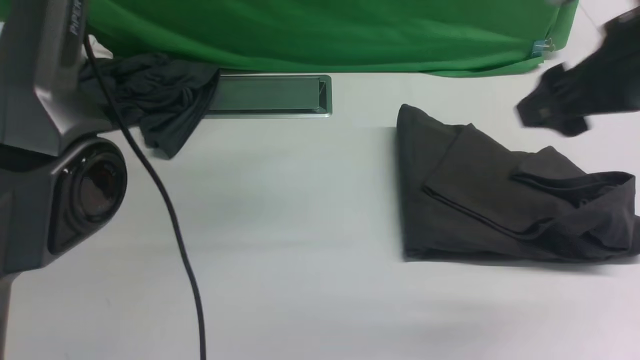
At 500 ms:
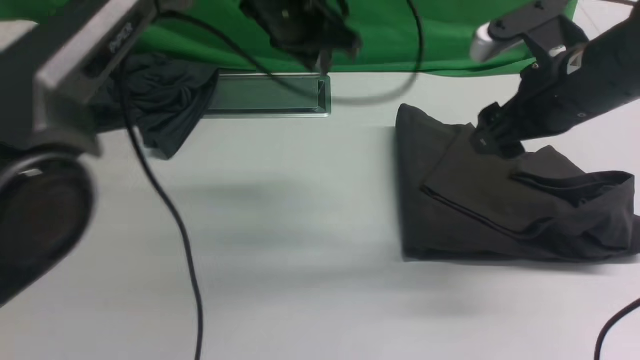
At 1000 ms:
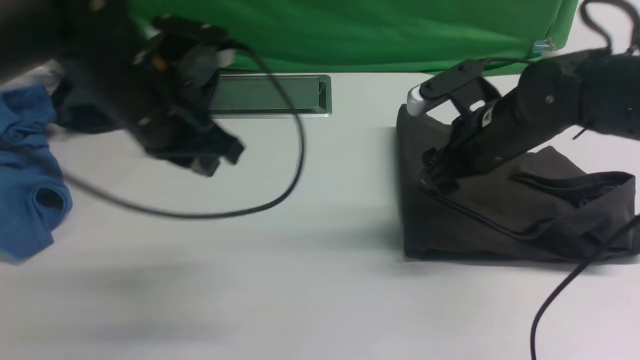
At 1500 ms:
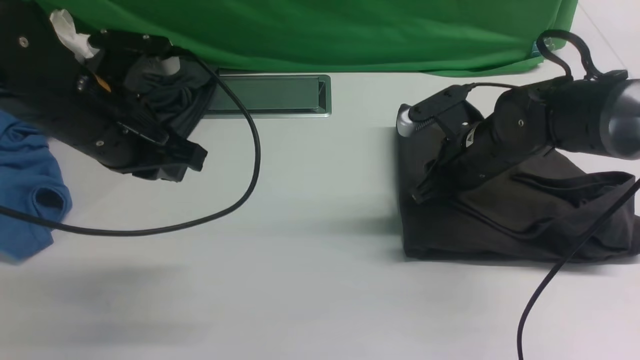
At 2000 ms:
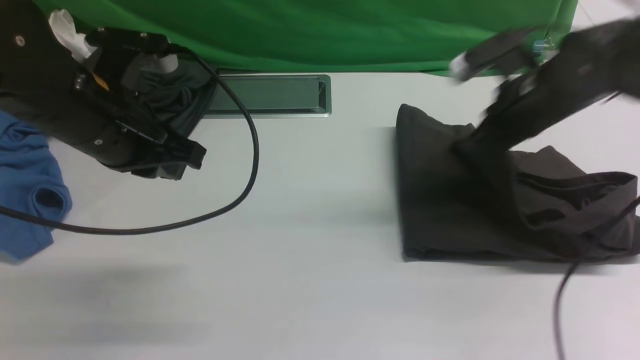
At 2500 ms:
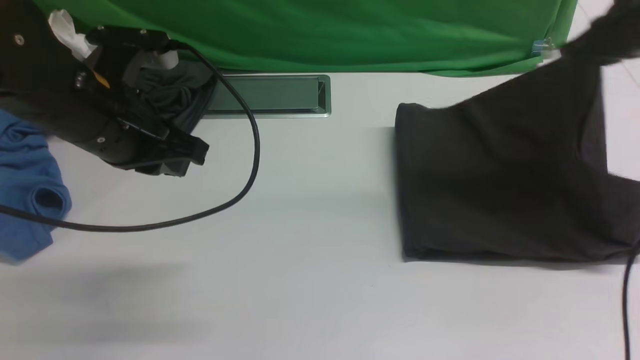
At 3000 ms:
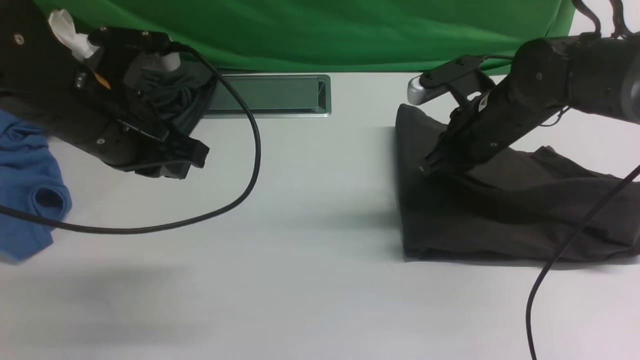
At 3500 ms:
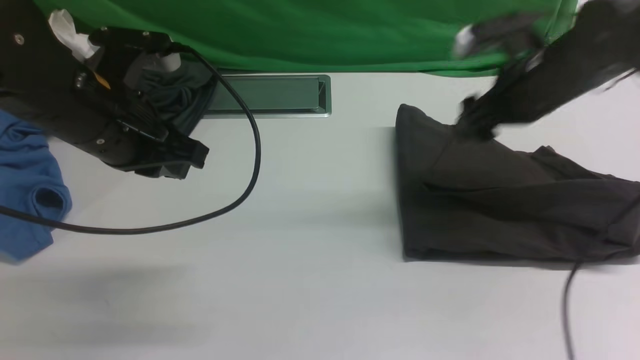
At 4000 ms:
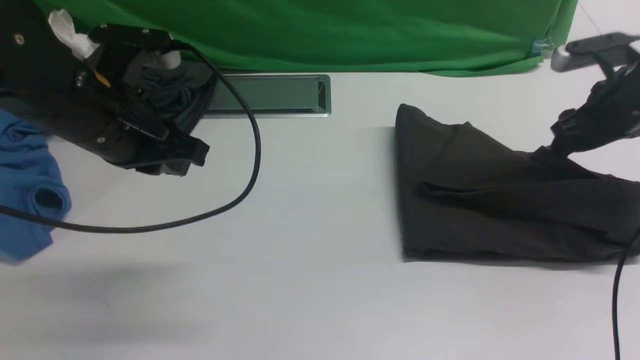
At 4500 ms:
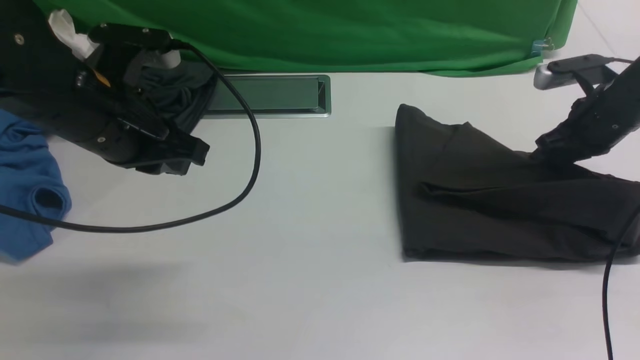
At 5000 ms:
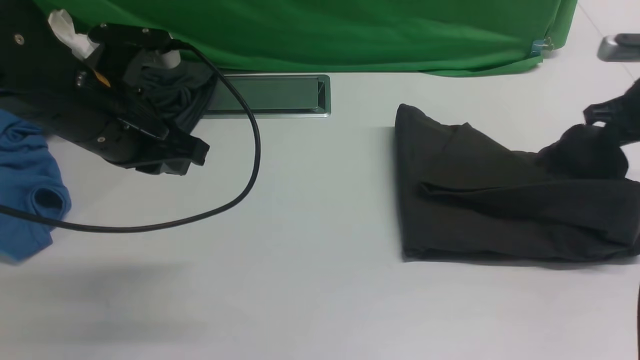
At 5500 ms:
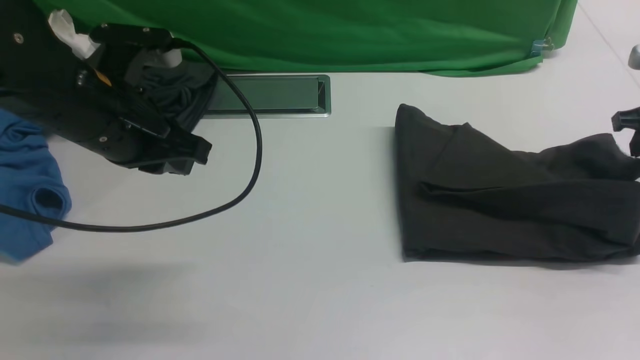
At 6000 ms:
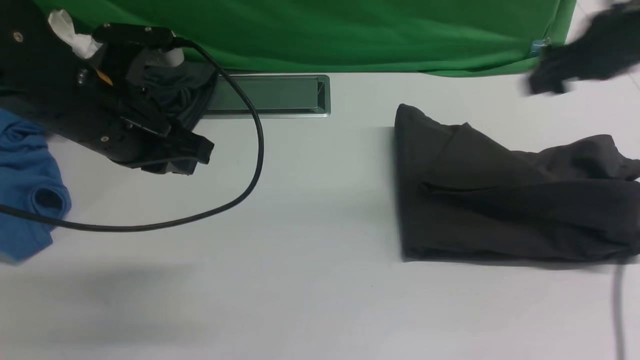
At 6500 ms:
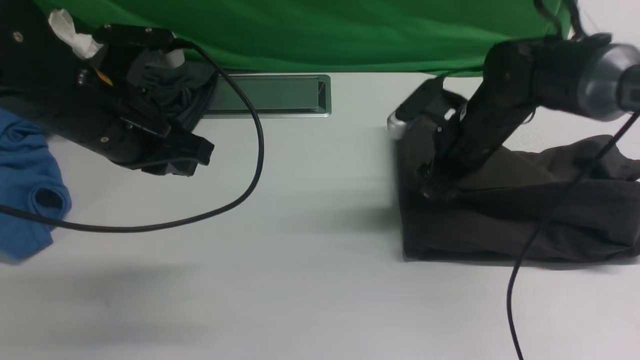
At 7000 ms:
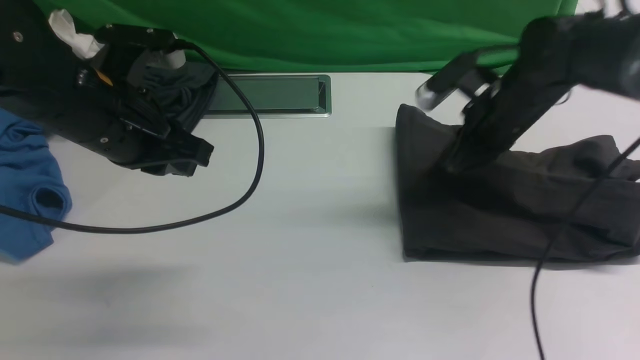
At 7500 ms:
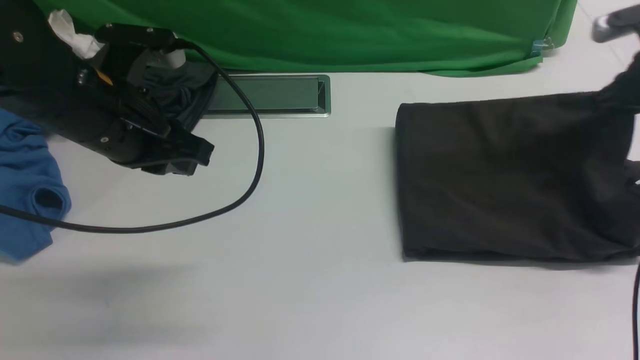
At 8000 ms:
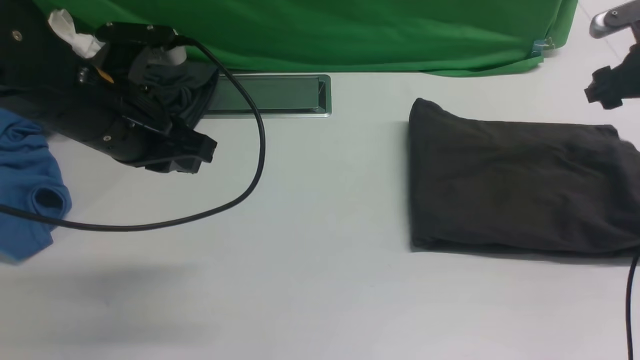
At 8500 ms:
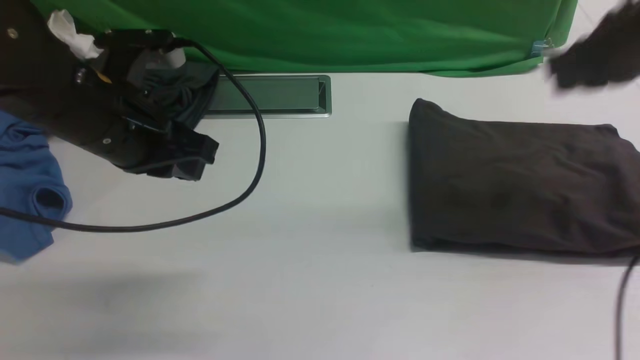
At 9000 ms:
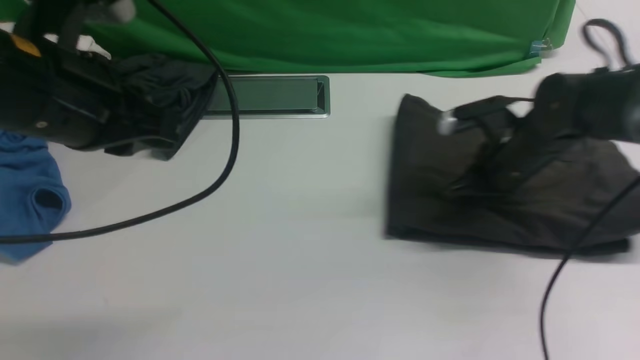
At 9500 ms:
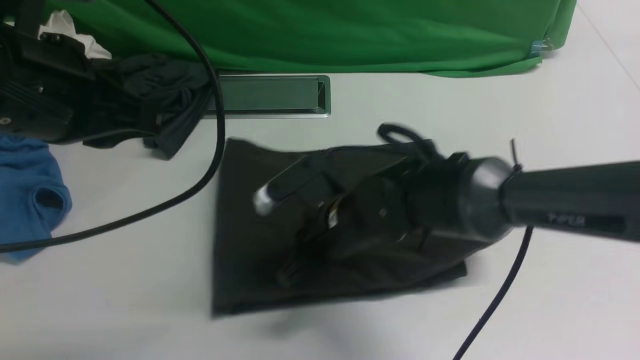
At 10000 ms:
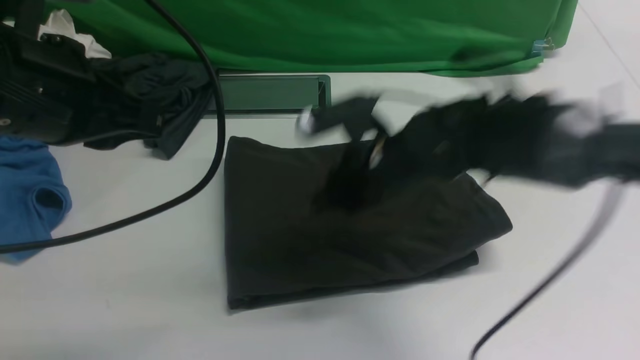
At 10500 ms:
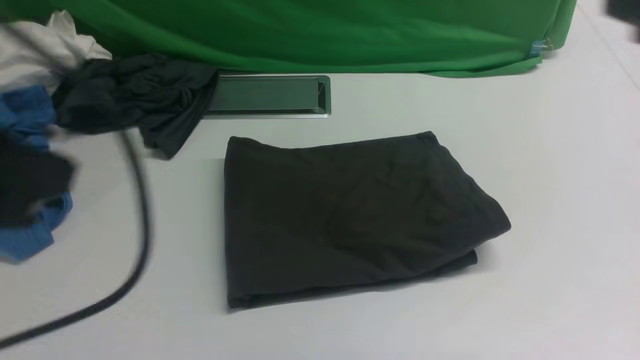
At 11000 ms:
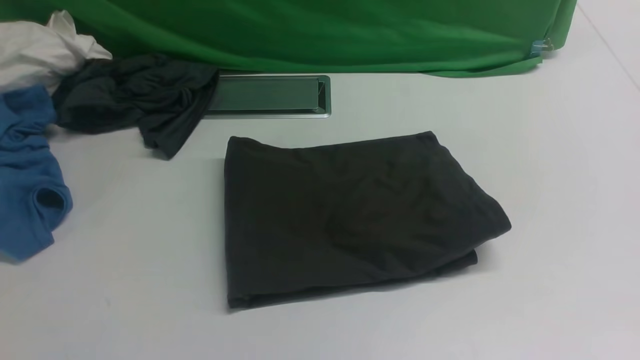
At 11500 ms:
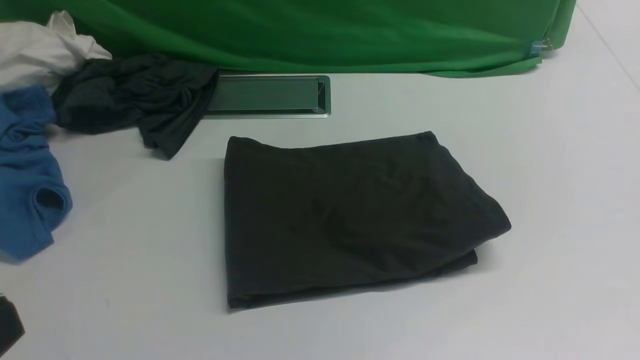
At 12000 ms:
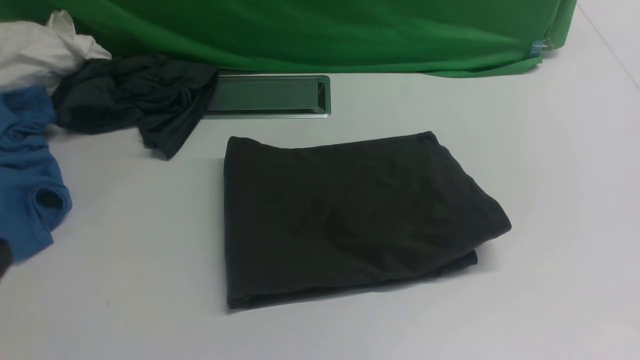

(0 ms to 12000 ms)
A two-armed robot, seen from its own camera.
0 ms - 2000 ms: The right gripper is displaced forward and downward by approximately 15 cm, and closes its fingers, while the left gripper moves backward, downward and to the left, about 25 cm, and closes its fingers.
2000 ms - 4000 ms: The right gripper swings left and right, roughly 15 cm each way, with 2 reversals, and opens.
4000 ms - 6000 ms: The right gripper moves to the left, approximately 5 cm, and closes, then opens again.
6000 ms - 8000 ms: The right gripper shifts approximately 10 cm to the right, and closes, then reopens.
8000 ms - 10000 ms: The left gripper is displaced upward and backward by some 10 cm. Meanwhile the right gripper heads to the left and backward, covering about 35 cm, and closes.
10000 ms - 12000 ms: The right gripper shifts approximately 35 cm backward and to the right. The left gripper is displaced backward and downward by approximately 20 cm.

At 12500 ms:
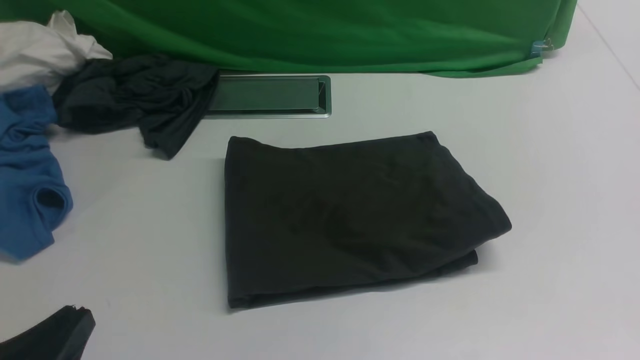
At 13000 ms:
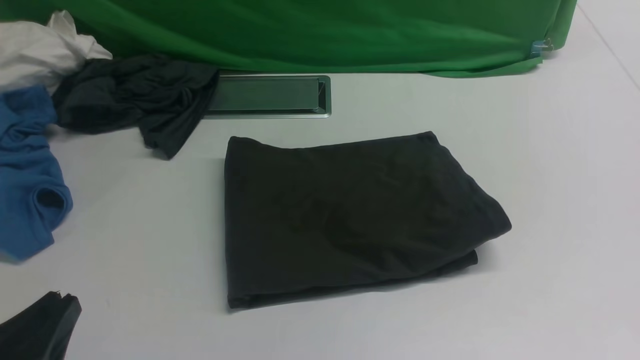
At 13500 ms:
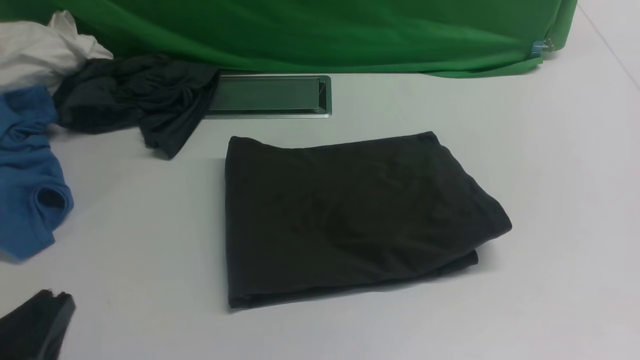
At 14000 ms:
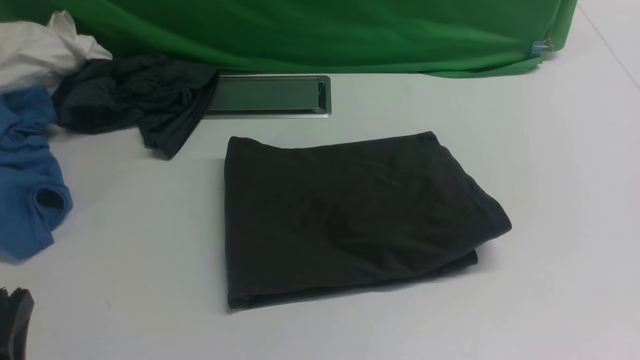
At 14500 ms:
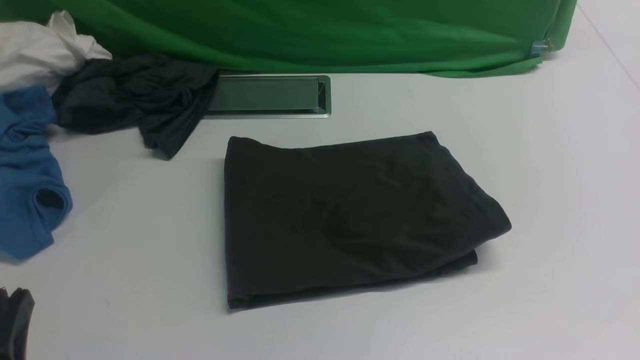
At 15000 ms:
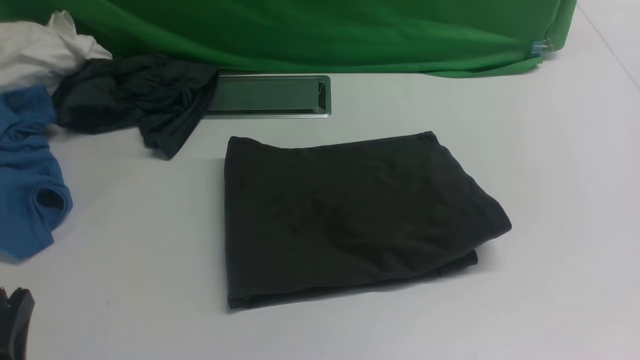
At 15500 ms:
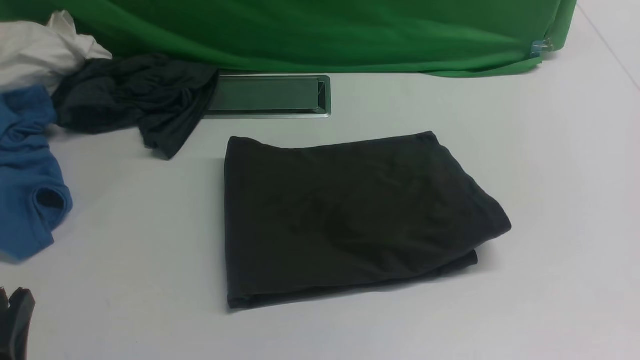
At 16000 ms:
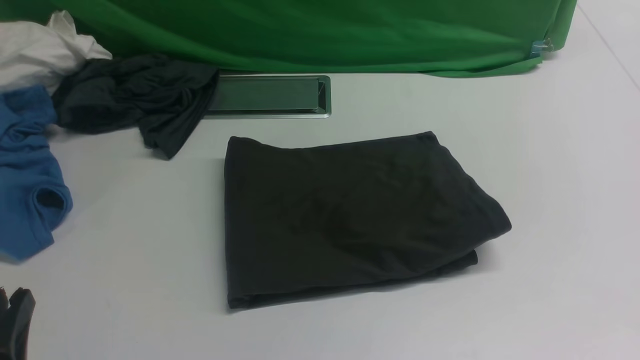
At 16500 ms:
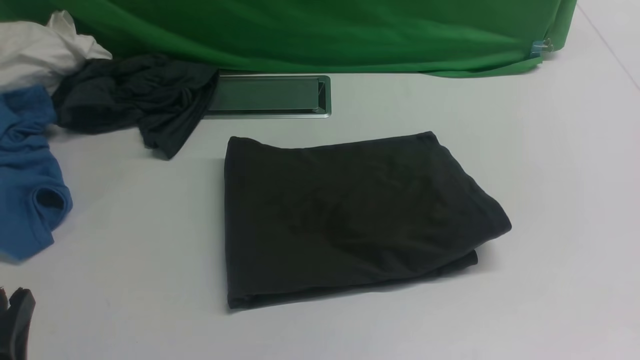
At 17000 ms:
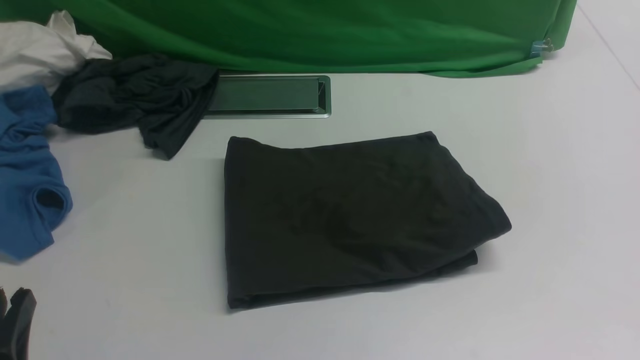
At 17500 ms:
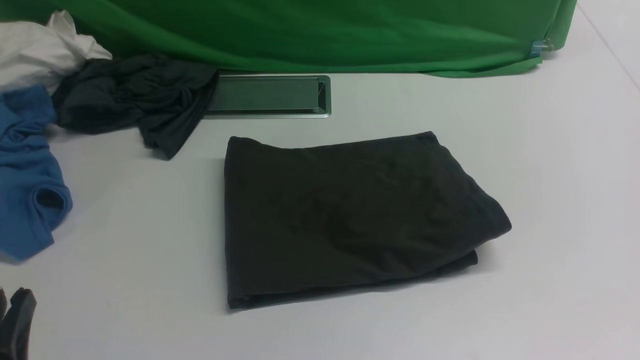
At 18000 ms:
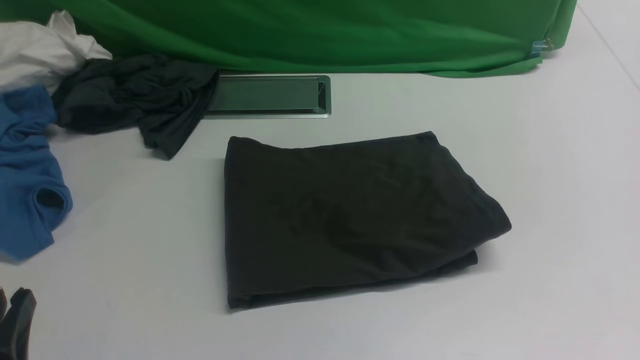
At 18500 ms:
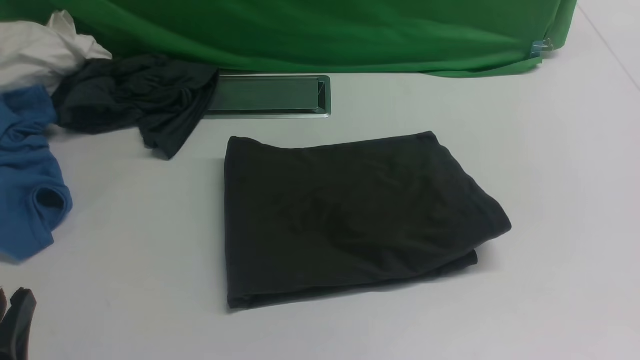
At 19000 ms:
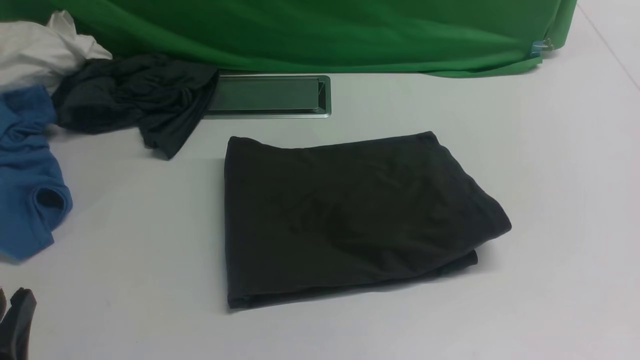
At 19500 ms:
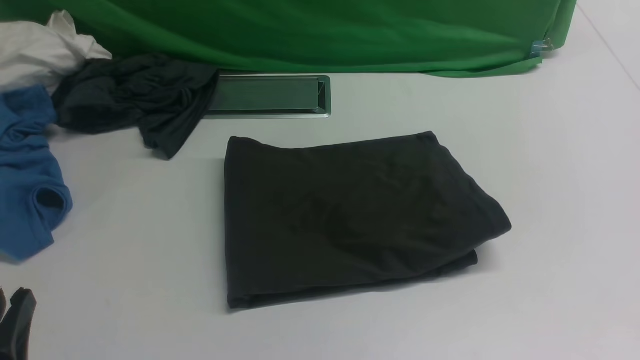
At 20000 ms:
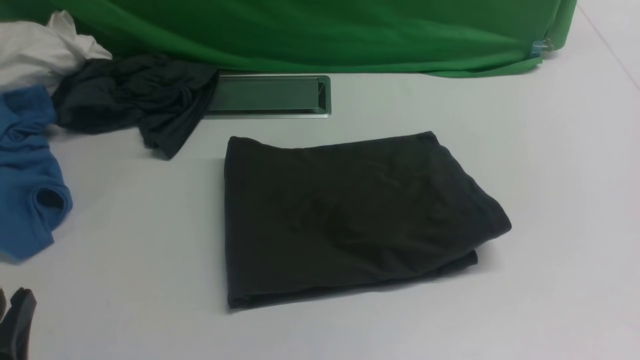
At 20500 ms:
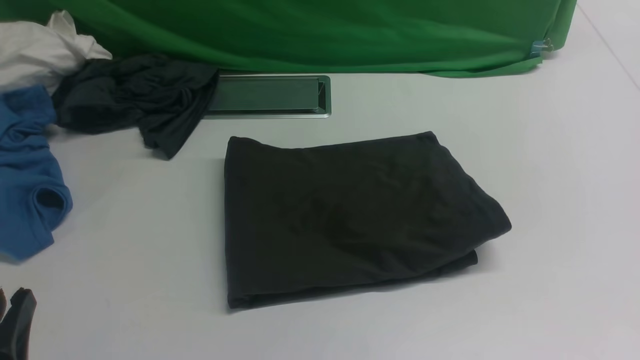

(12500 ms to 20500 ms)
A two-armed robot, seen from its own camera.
16500 ms - 20500 ms: The two grippers keep their place.
